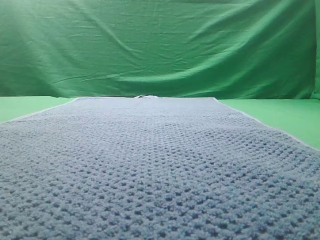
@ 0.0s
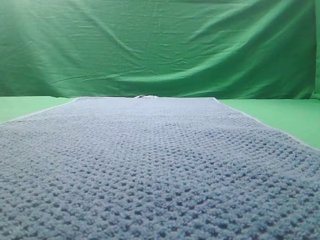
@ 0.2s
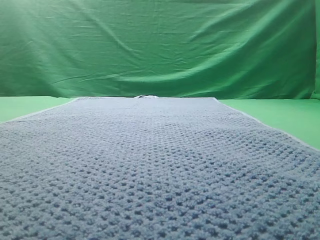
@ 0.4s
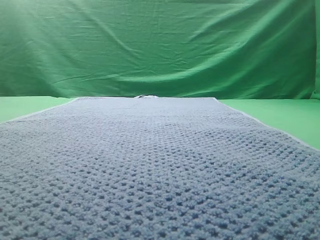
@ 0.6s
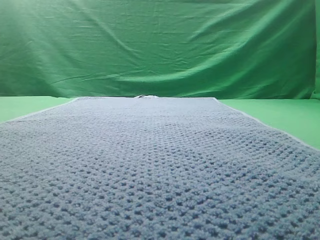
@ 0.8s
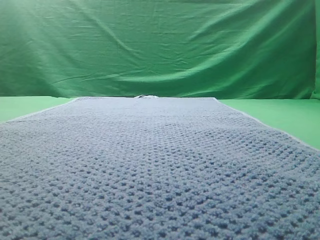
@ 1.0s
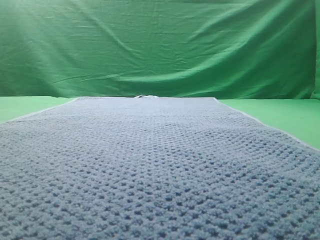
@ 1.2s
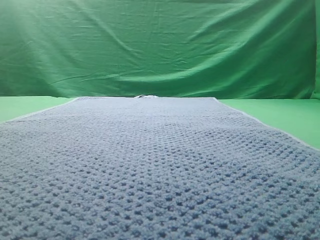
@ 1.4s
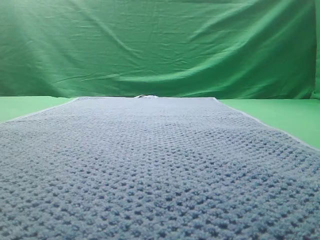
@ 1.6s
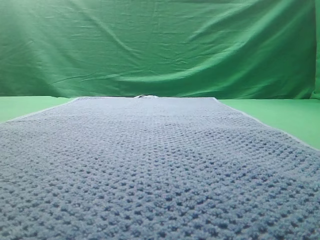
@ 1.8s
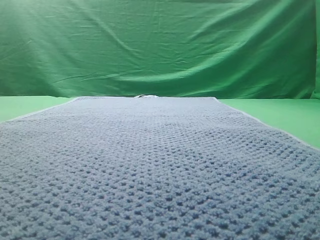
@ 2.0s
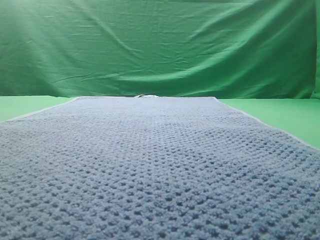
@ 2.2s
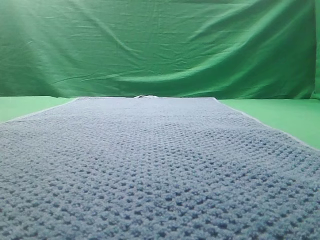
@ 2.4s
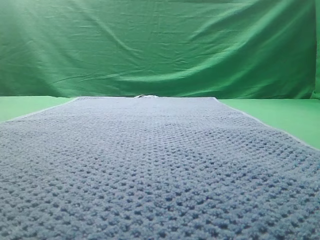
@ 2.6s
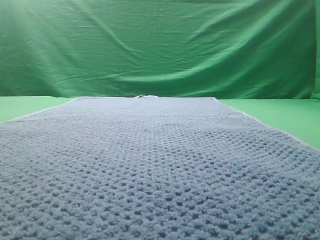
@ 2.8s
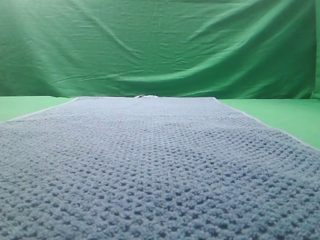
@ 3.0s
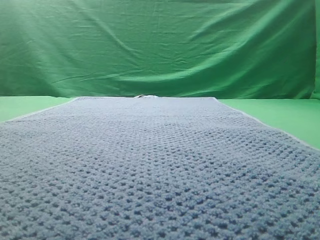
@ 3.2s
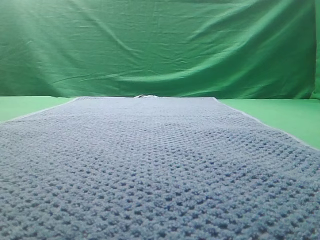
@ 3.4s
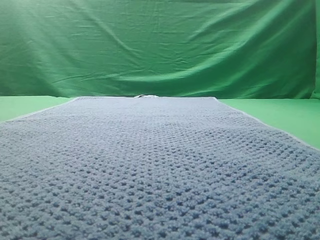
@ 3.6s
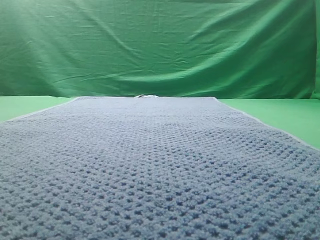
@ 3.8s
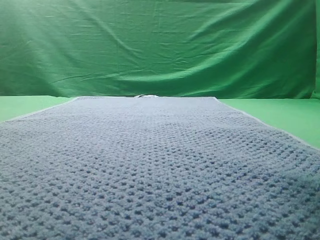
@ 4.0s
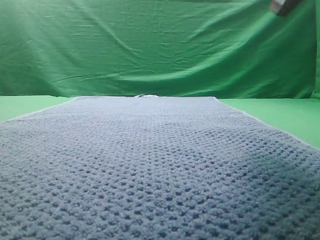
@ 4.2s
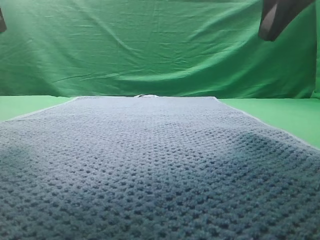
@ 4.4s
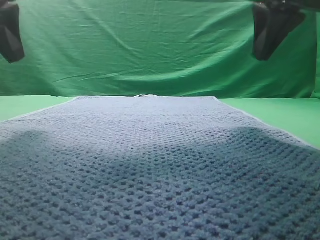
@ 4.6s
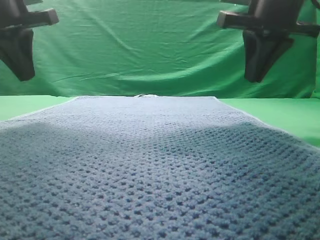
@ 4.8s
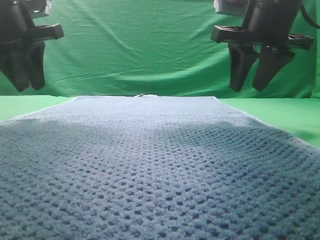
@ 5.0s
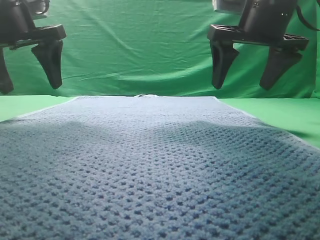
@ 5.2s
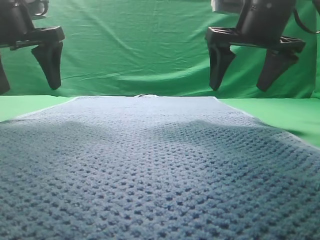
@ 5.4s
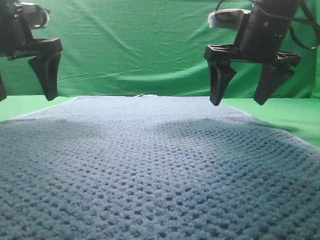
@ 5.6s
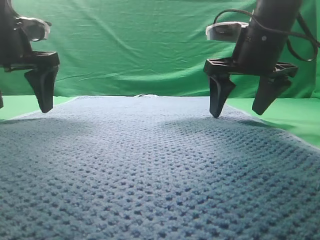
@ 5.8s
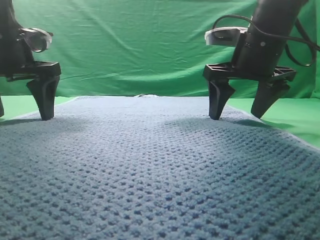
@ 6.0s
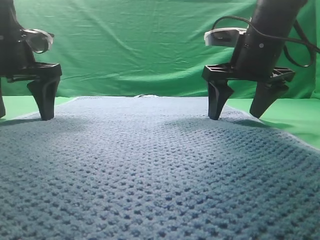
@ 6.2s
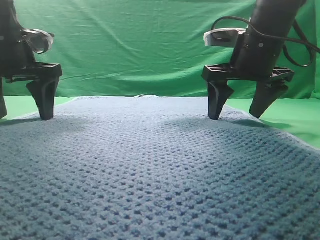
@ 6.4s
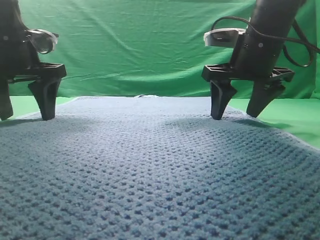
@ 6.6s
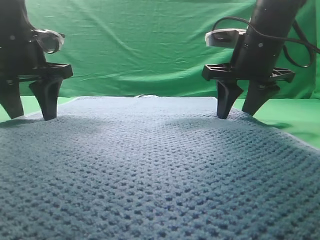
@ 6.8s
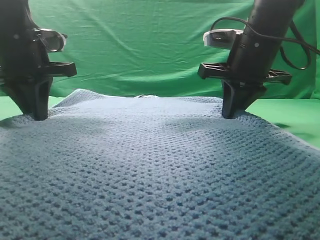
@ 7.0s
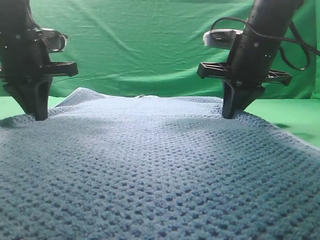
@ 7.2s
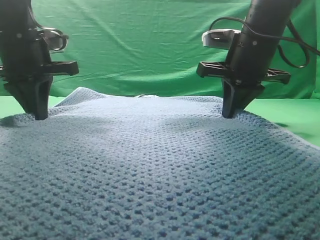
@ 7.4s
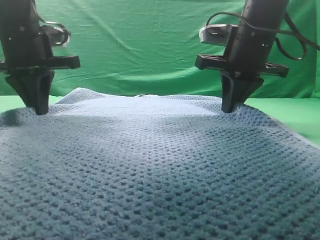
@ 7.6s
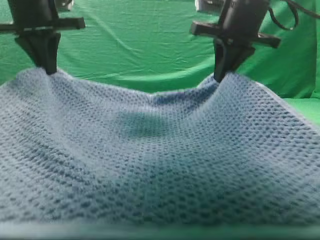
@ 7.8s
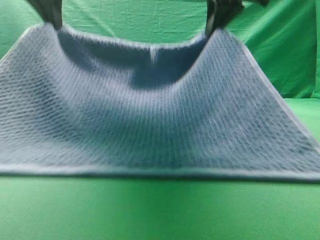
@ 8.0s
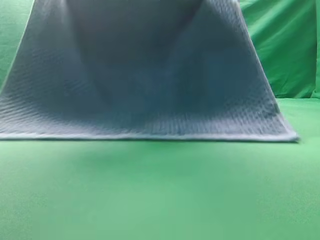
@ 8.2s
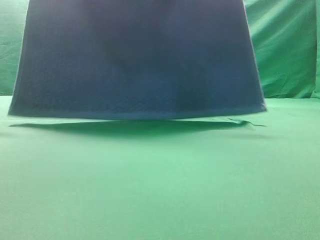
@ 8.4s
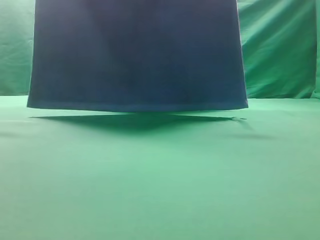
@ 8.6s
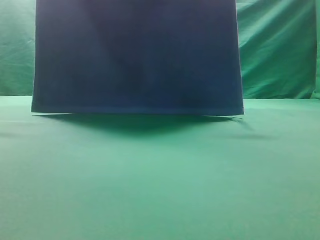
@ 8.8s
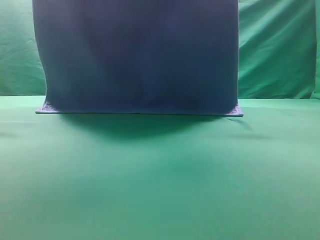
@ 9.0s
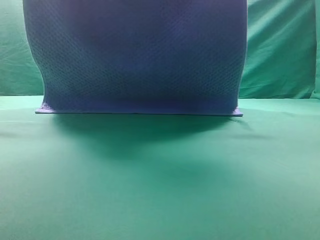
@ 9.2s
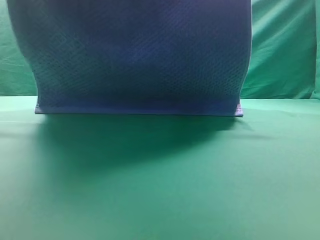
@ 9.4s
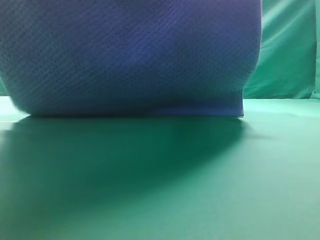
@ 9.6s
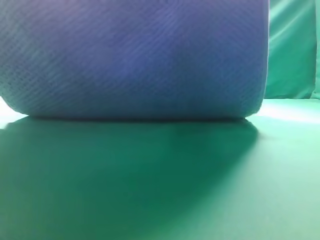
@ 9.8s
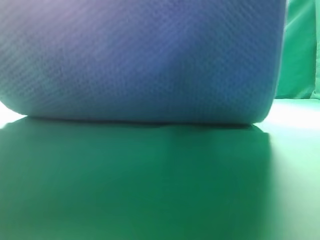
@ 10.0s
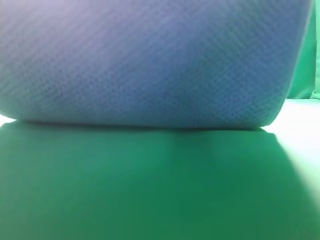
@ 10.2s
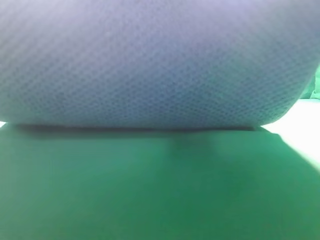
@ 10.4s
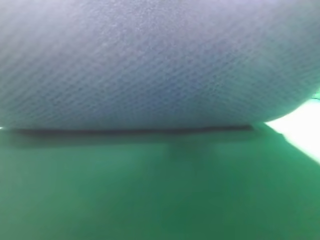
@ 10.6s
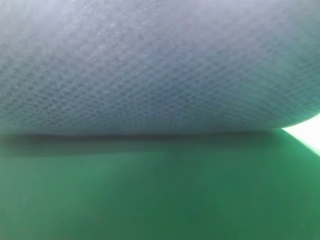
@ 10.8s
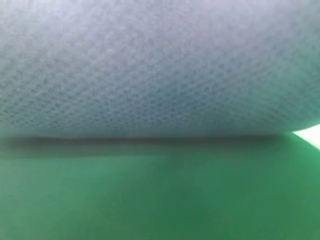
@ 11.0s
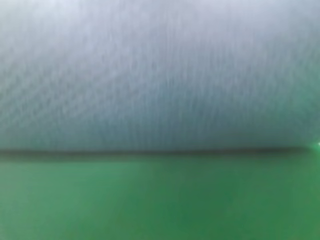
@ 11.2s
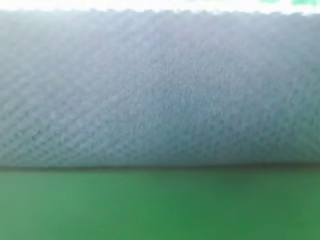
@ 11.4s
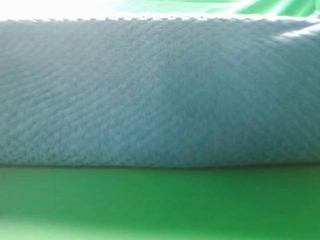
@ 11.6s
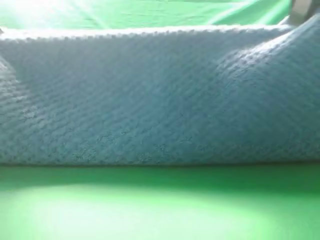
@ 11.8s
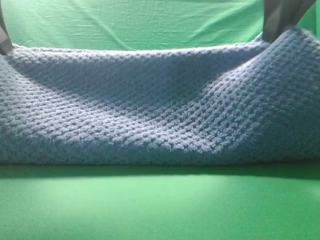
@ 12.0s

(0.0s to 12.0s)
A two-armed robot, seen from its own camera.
Task of the whole recording: fold the towel on the table twice.
Step, 0.0s - 8.6s: pick up the towel with two arm.

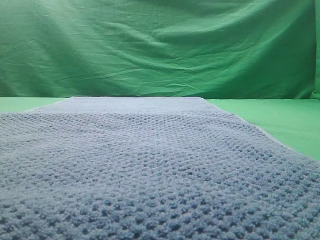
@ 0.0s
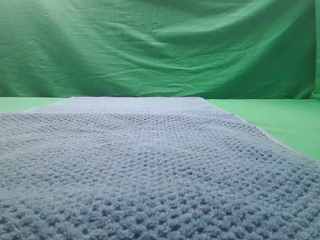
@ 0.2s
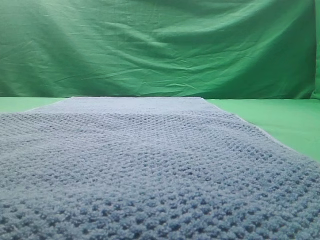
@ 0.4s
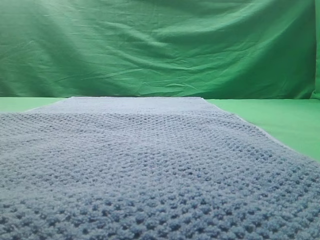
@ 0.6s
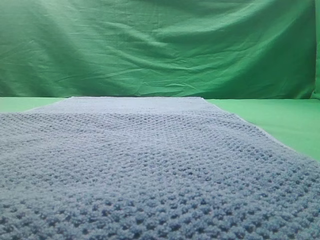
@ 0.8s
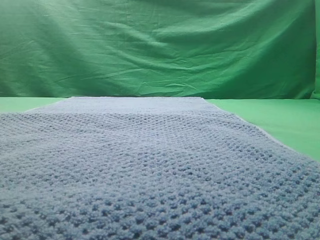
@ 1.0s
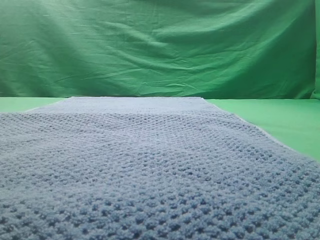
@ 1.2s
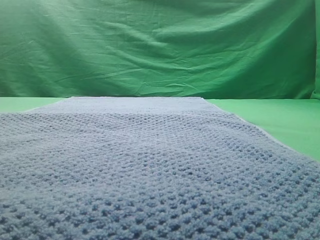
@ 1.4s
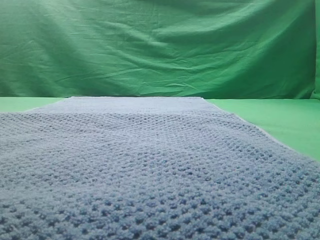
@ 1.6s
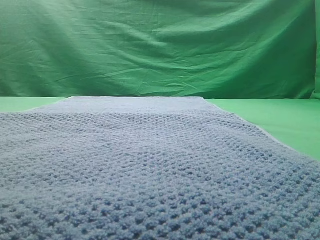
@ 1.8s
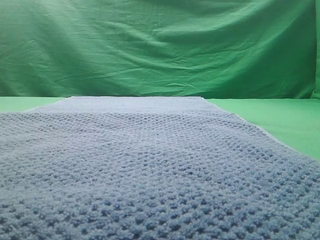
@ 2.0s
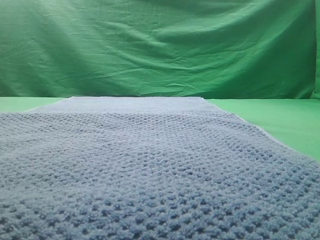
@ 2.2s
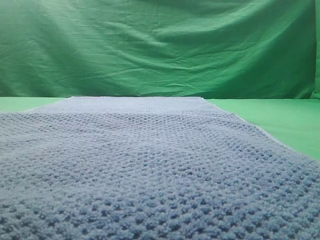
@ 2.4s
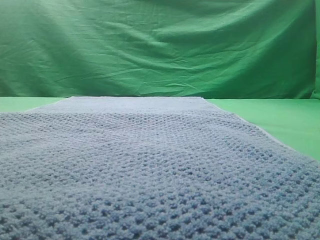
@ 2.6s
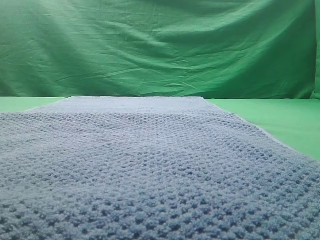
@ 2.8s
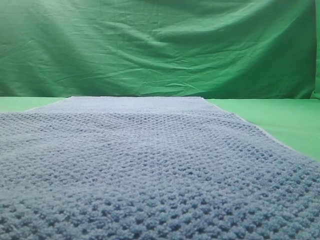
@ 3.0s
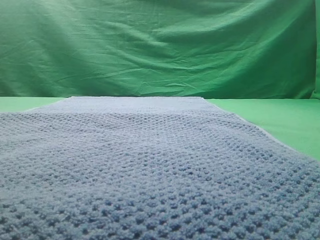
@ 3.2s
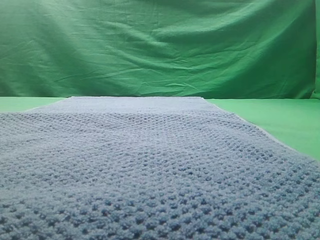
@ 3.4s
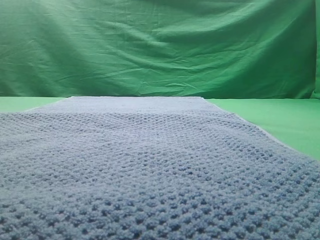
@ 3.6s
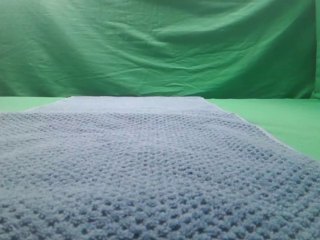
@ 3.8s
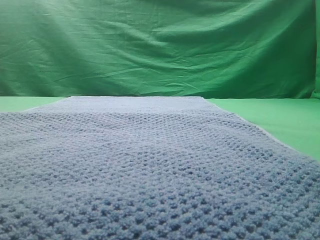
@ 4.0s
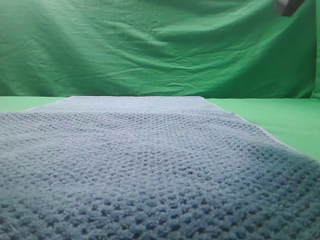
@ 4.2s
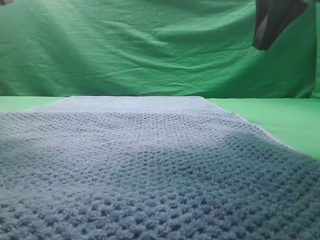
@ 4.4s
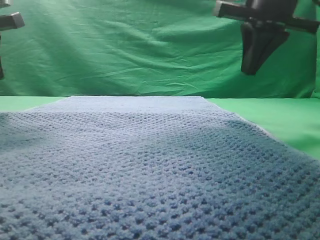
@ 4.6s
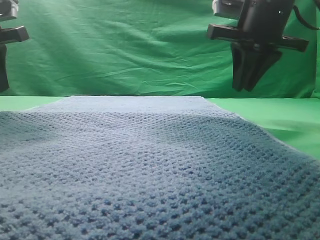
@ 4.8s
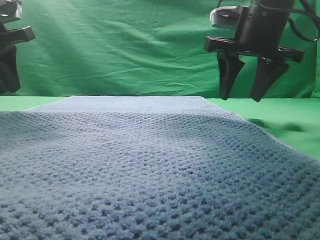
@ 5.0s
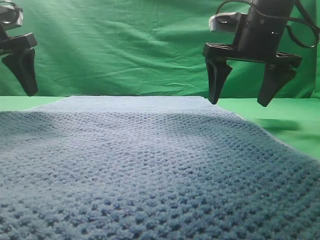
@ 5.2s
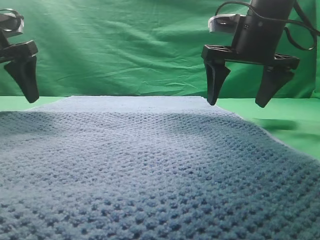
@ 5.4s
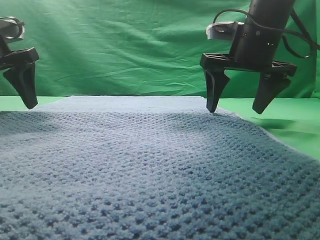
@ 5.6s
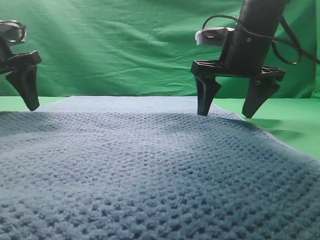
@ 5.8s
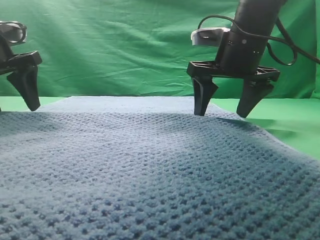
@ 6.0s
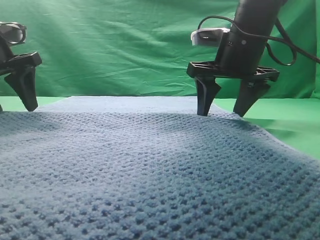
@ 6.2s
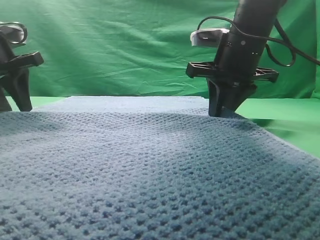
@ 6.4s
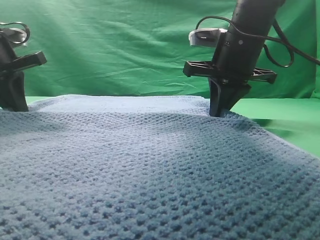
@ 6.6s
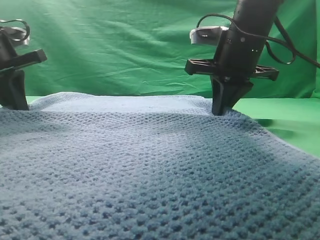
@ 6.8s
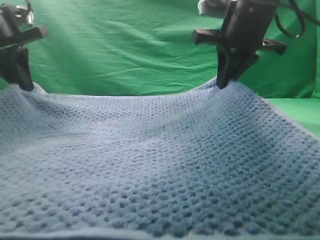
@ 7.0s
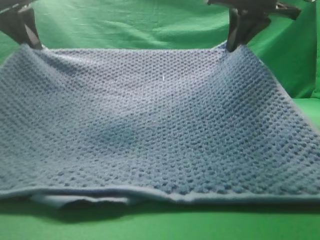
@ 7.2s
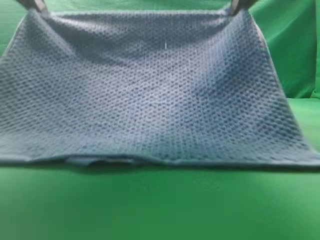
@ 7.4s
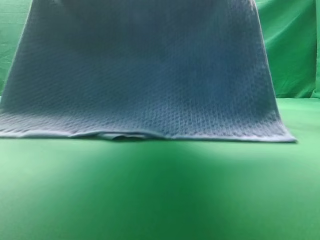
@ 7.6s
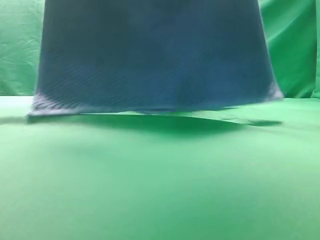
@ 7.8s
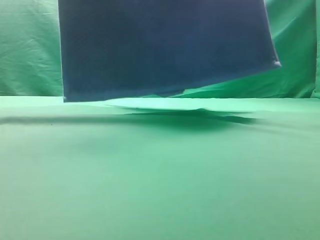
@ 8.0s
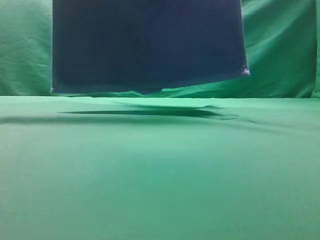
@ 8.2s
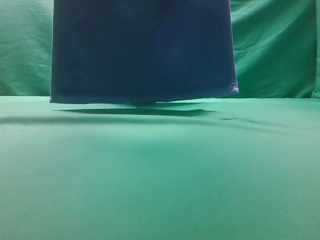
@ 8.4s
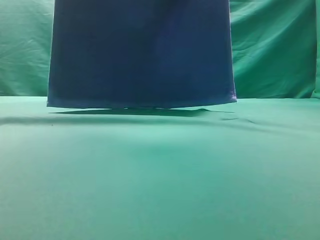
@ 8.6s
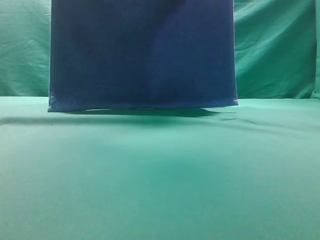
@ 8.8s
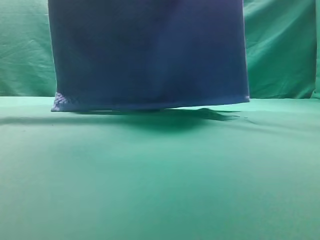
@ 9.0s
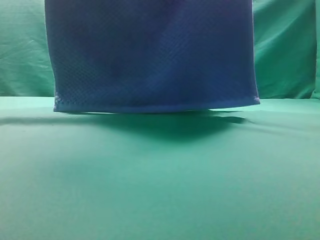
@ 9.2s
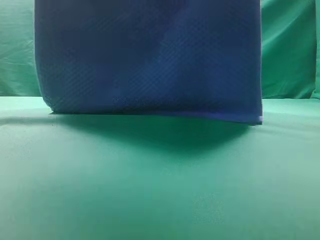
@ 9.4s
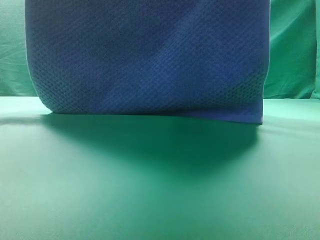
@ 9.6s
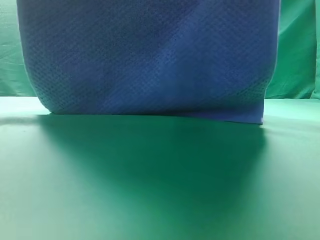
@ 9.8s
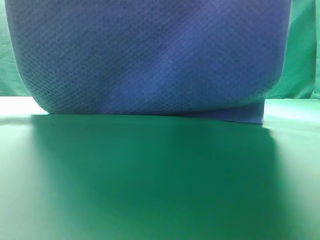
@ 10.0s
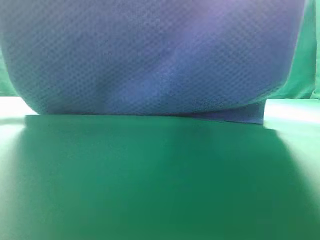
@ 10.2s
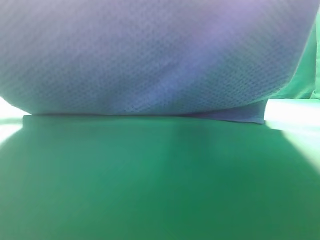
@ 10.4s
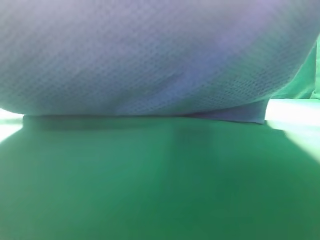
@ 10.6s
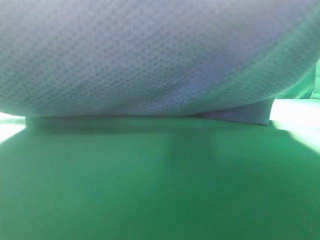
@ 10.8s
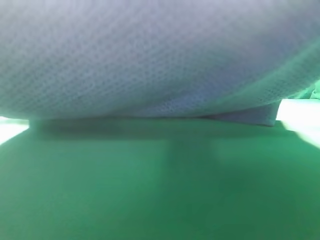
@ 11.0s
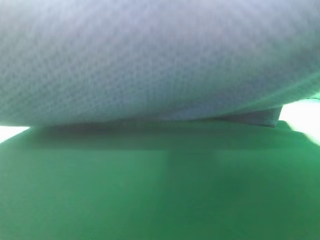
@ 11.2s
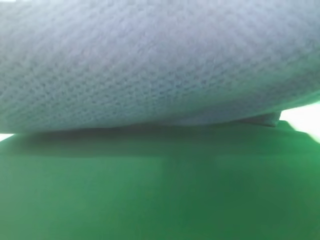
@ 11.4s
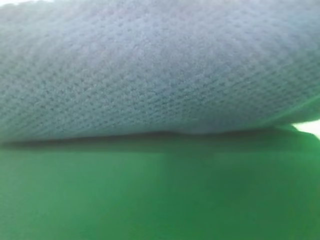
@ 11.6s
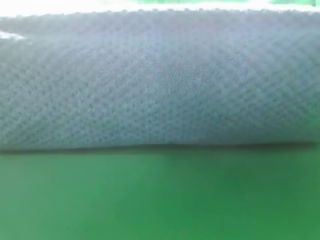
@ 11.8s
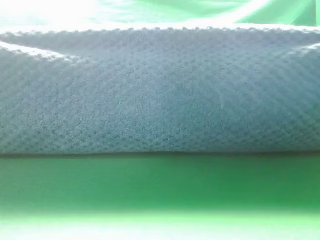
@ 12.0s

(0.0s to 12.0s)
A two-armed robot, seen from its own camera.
Task of the whole recording: fold the towel on the table twice.
Step, 0.0s - 8.2s: pick up the towel with two arm.
